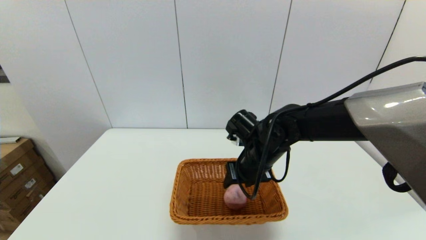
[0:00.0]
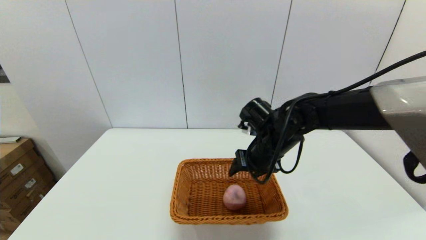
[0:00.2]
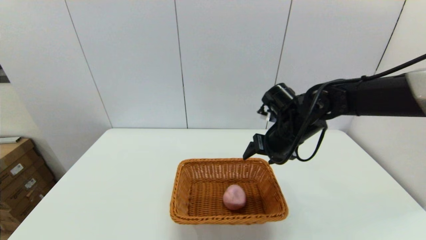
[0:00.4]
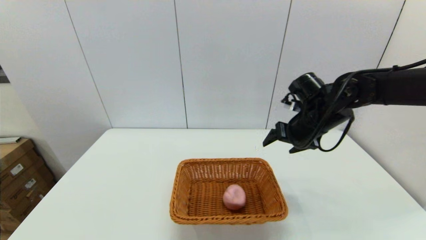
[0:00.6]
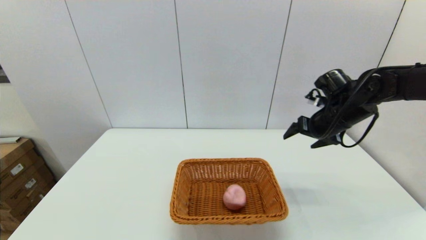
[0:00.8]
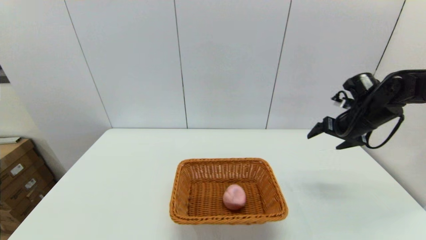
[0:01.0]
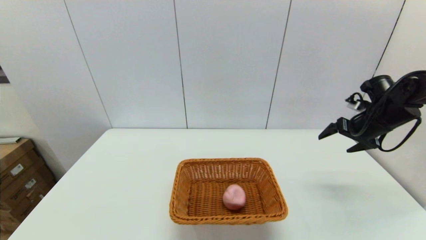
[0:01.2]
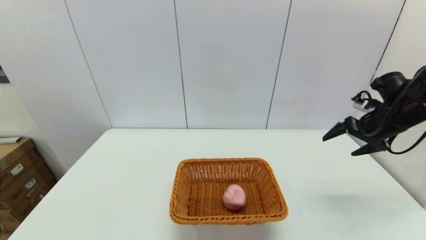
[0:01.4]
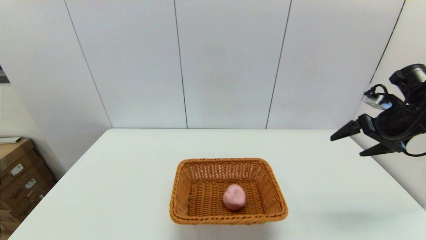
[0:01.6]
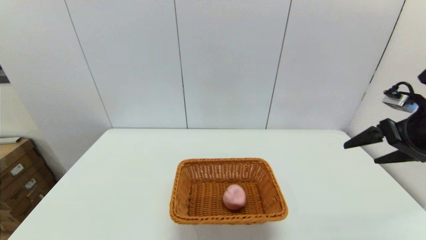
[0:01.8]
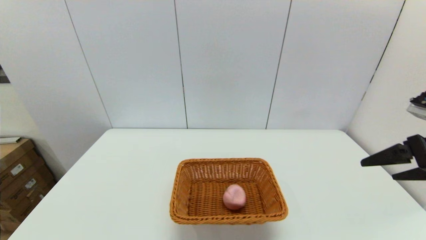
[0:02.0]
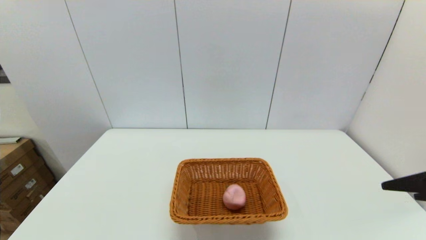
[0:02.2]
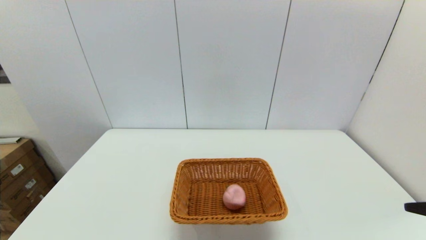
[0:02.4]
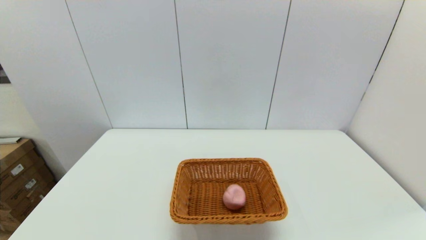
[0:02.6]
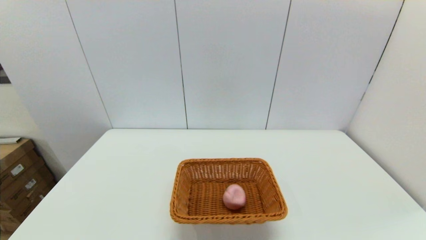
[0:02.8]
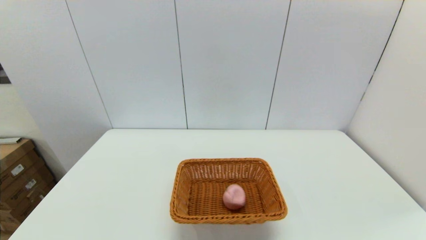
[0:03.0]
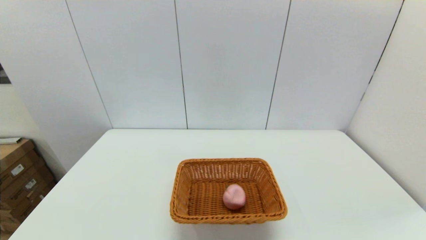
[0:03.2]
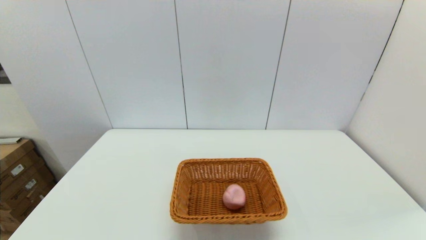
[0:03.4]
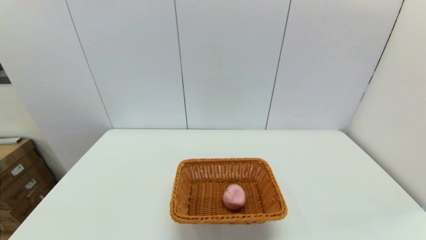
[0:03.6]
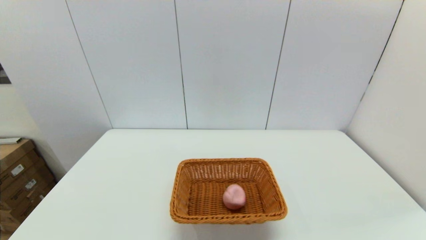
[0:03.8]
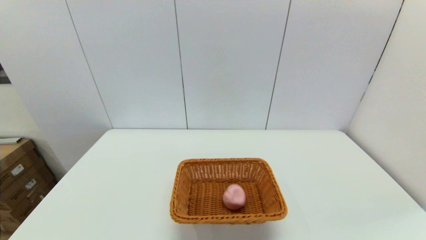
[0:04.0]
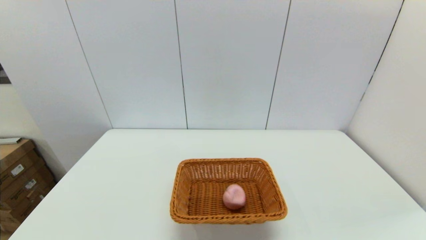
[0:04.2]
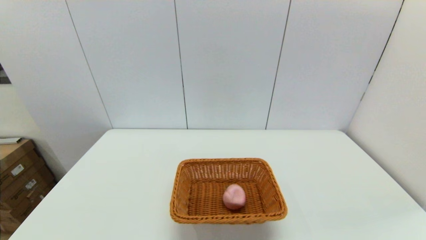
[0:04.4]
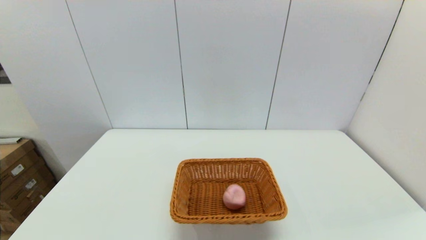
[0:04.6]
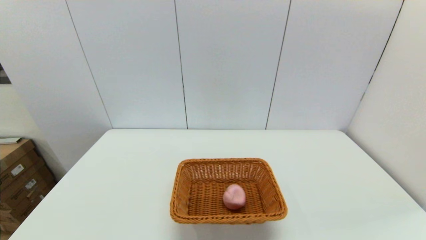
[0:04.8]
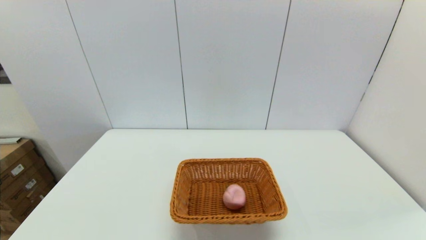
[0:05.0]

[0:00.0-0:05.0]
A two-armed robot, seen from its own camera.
0:00.0 to 0:01.6: The right gripper shifts approximately 30 cm to the right.
0:01.6 to 0:03.4: The right gripper shifts roughly 35 cm backward.
